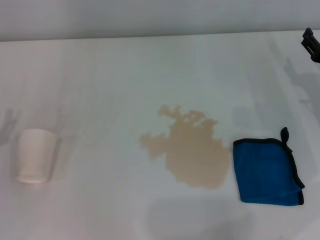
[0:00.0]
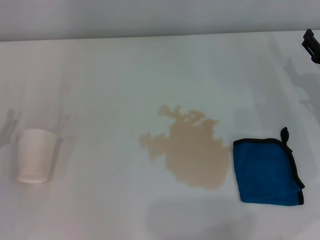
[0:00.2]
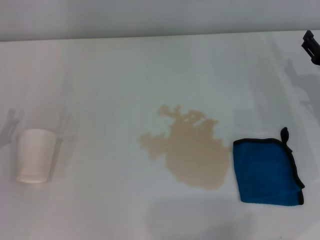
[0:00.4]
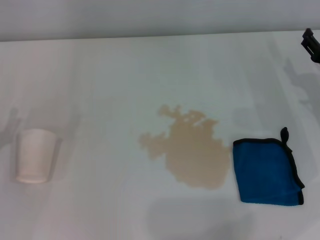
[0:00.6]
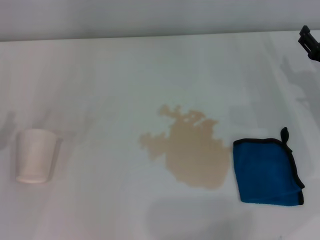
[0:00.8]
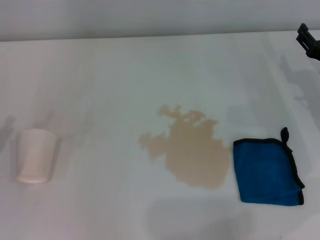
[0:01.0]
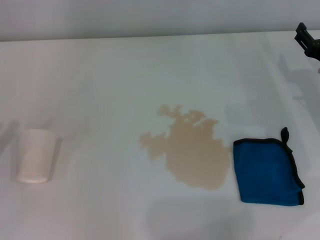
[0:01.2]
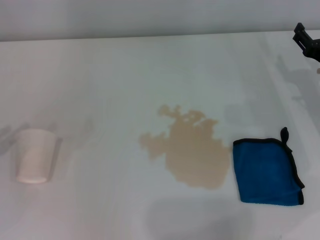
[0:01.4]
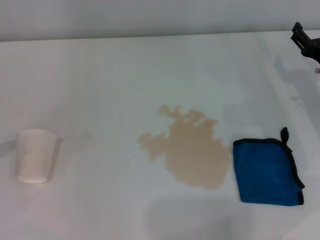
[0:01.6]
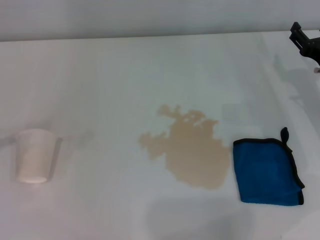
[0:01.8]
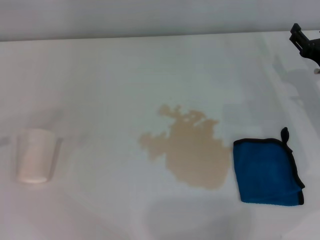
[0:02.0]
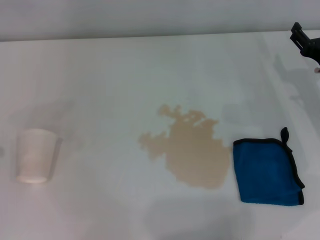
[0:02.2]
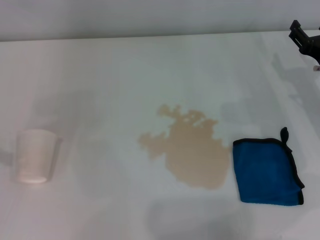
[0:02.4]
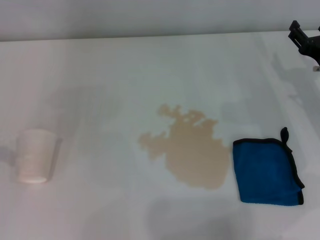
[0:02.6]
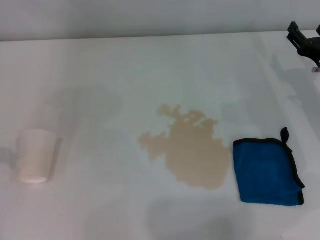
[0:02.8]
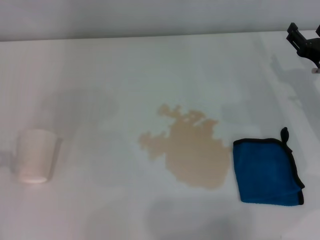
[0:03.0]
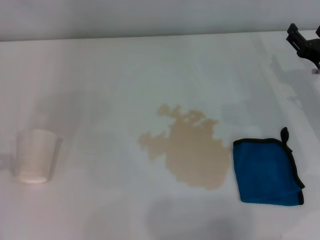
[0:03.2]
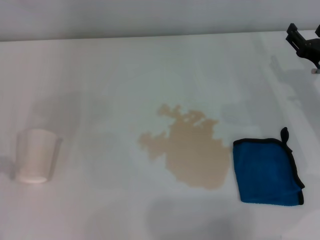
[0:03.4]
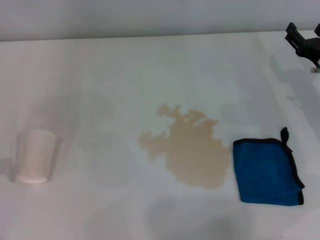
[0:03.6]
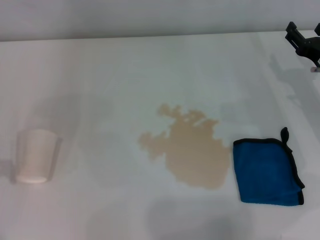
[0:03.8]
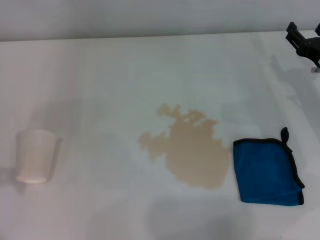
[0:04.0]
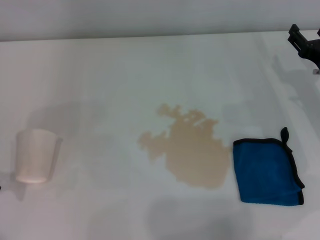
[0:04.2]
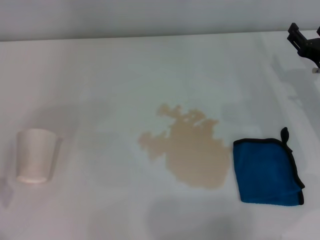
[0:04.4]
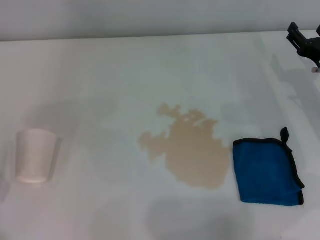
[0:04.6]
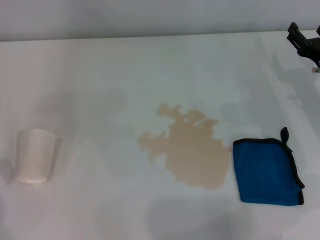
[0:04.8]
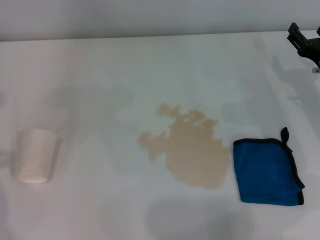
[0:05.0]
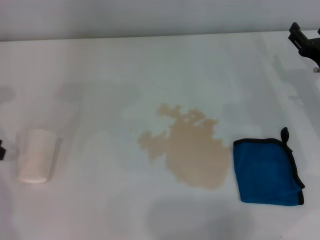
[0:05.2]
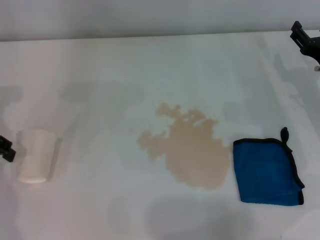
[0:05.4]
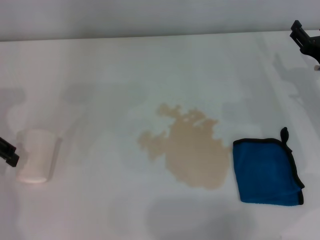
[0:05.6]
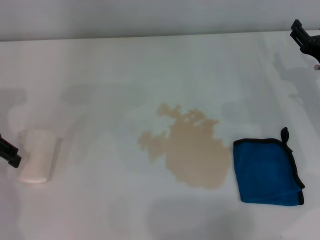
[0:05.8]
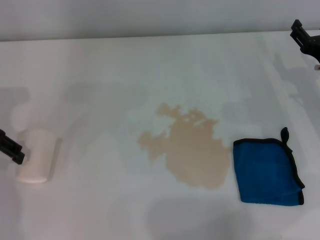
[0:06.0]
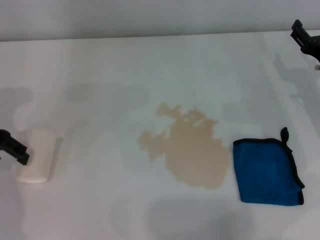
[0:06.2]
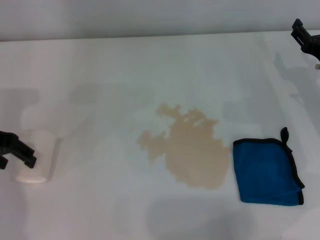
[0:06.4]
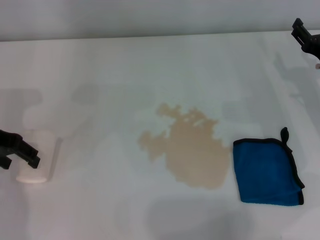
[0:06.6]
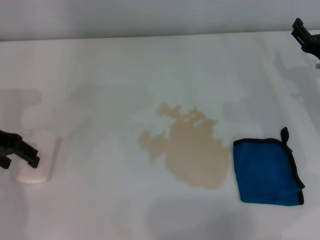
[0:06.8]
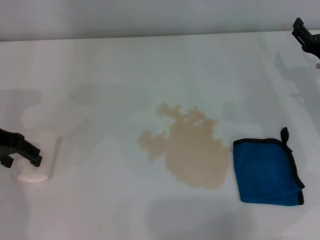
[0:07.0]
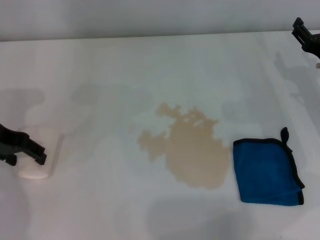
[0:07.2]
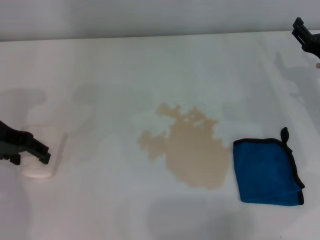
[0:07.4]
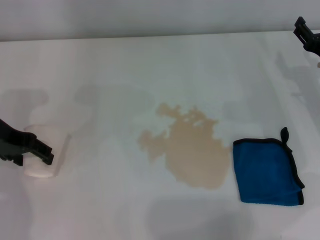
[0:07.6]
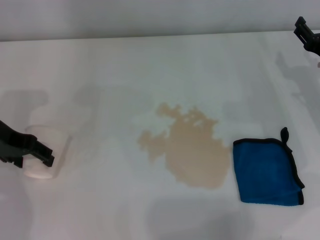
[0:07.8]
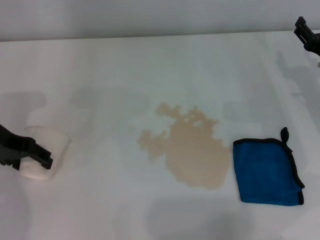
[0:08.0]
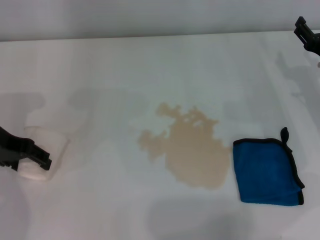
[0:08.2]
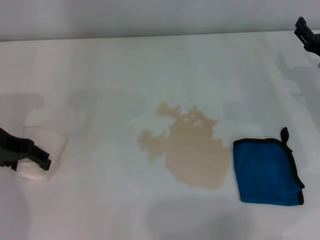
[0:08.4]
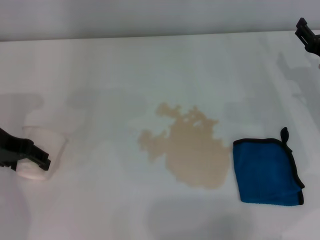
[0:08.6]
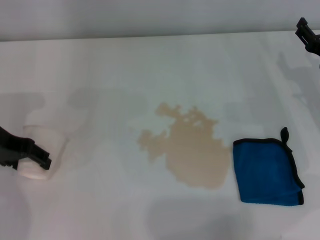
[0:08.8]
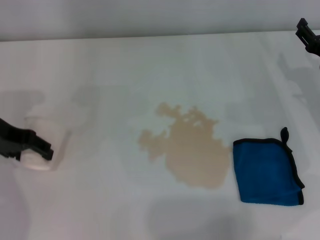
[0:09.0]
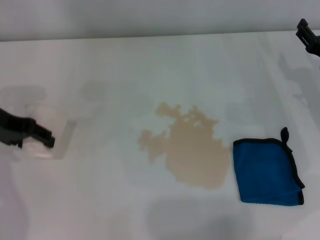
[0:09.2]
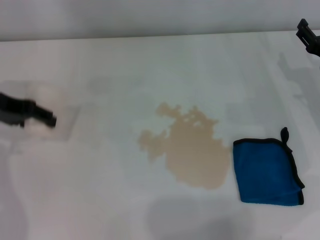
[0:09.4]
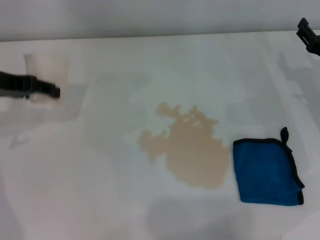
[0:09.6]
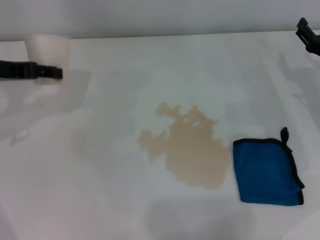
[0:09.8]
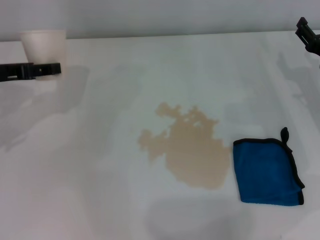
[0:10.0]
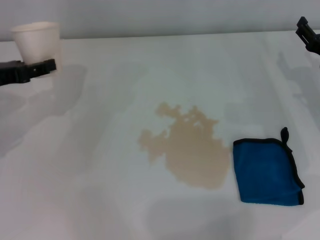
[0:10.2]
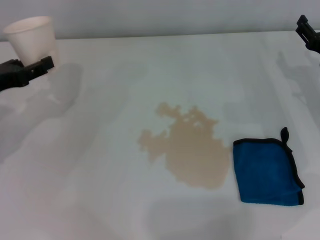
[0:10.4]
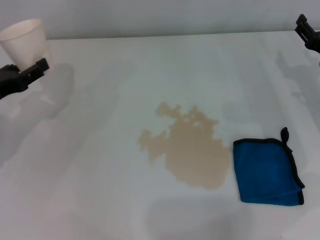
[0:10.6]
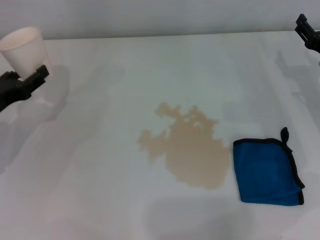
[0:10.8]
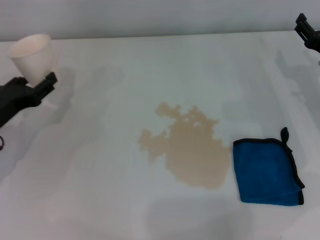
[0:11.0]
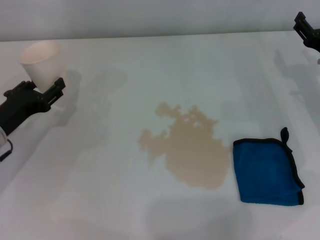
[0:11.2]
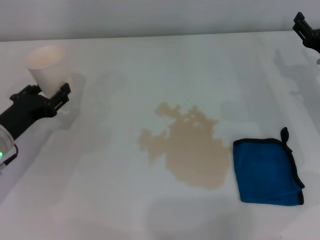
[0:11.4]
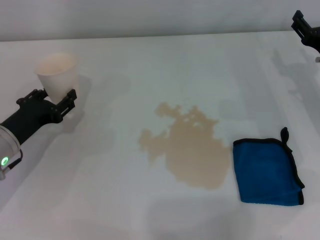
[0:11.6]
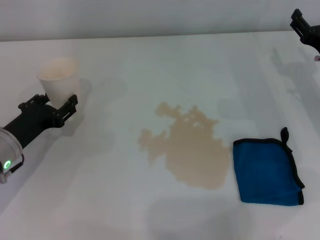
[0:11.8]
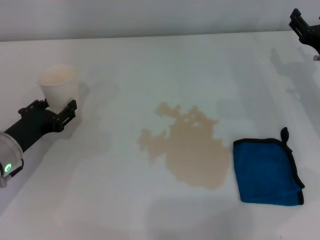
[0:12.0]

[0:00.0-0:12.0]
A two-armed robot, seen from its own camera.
0:04.4 to 0:06.0: The left gripper shifts approximately 5 cm to the right.
0:06.0 to 0:07.6: There are only small adjustments of the grippers.
0:07.6 to 0:09.0: Both grippers stay put.
0:09.0 to 0:10.4: The left gripper shifts by approximately 5 cm.
0:10.4 to 0:12.0: The left gripper shifts approximately 10 cm downward.

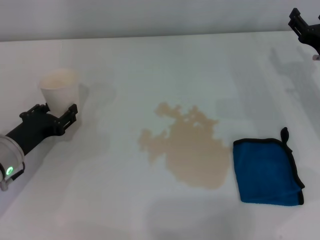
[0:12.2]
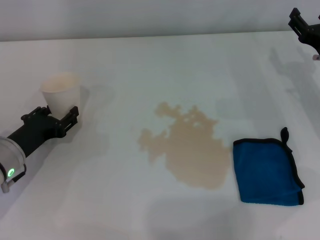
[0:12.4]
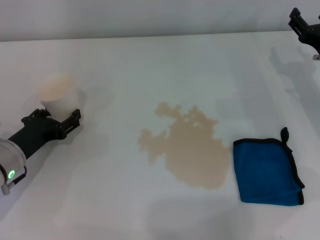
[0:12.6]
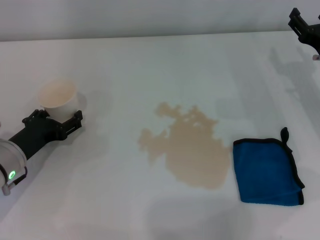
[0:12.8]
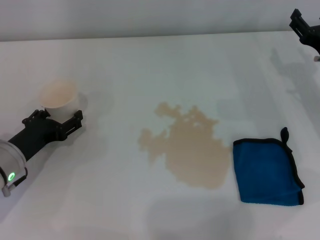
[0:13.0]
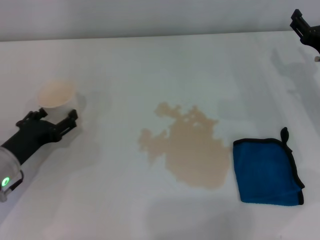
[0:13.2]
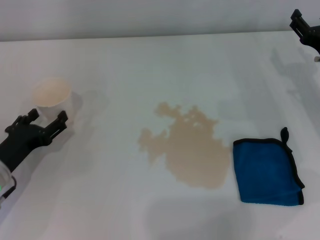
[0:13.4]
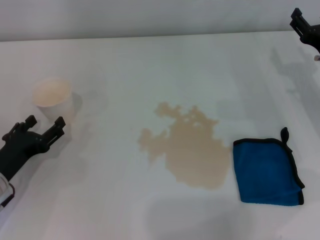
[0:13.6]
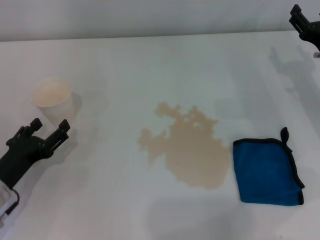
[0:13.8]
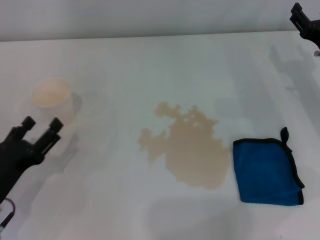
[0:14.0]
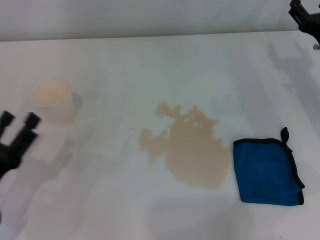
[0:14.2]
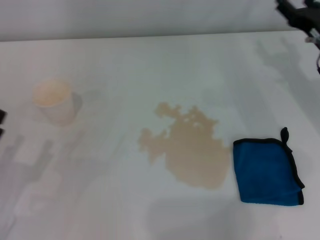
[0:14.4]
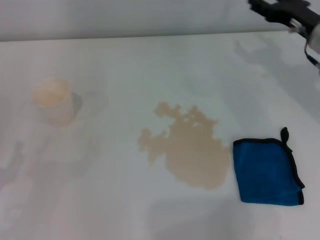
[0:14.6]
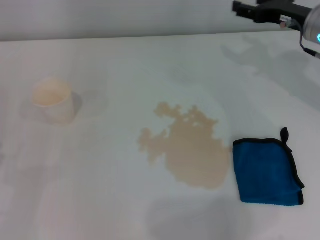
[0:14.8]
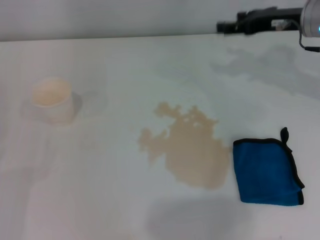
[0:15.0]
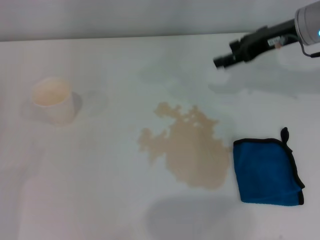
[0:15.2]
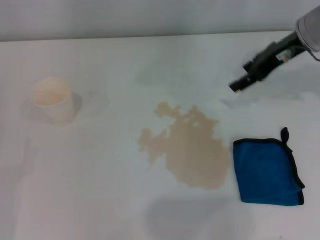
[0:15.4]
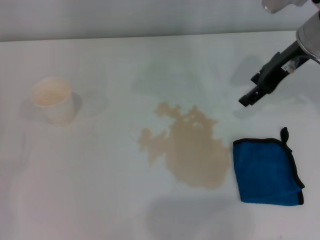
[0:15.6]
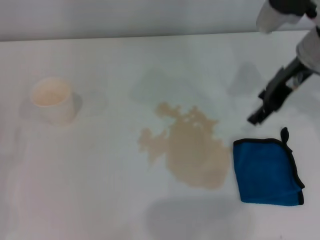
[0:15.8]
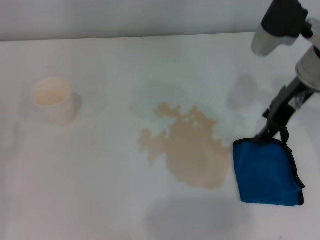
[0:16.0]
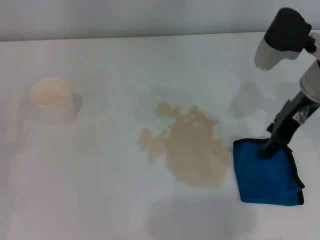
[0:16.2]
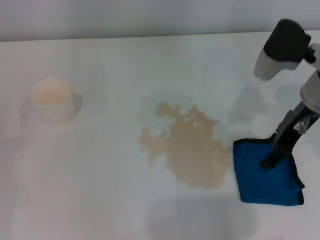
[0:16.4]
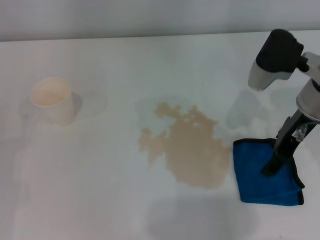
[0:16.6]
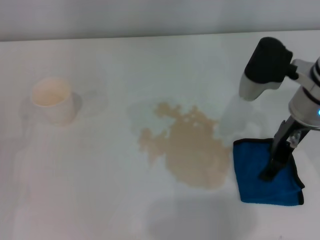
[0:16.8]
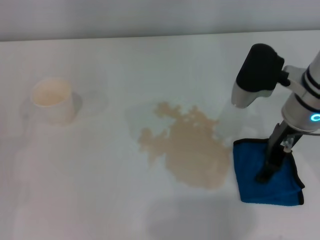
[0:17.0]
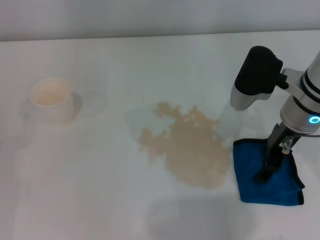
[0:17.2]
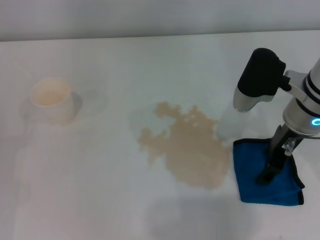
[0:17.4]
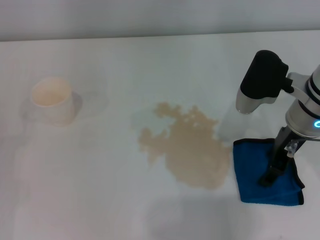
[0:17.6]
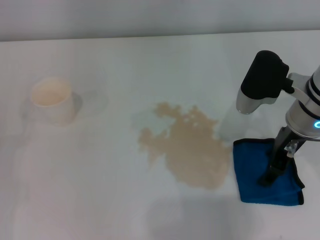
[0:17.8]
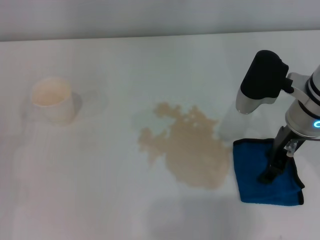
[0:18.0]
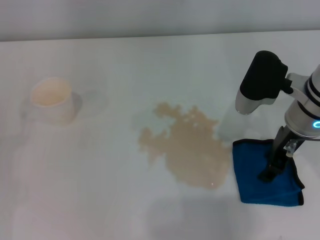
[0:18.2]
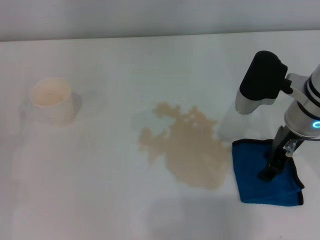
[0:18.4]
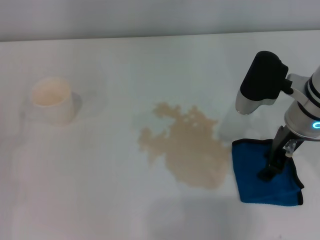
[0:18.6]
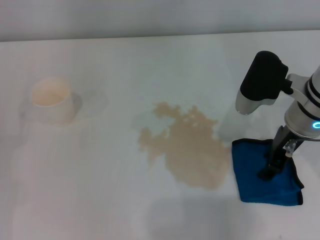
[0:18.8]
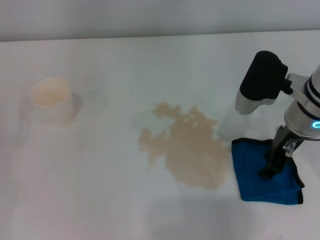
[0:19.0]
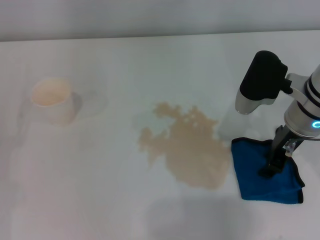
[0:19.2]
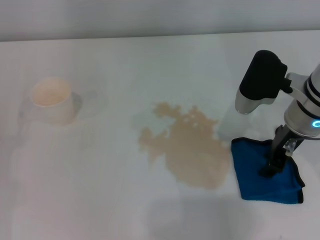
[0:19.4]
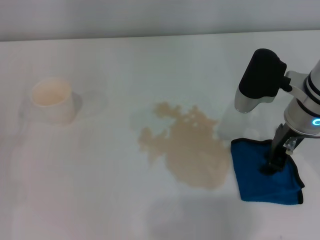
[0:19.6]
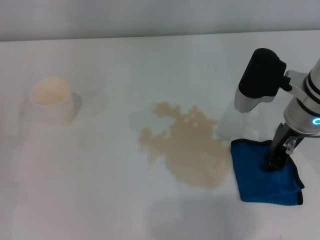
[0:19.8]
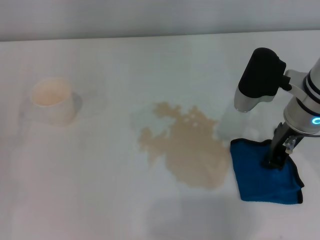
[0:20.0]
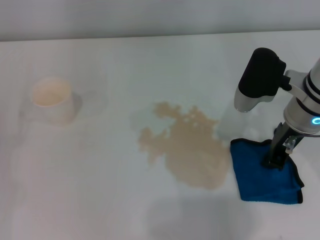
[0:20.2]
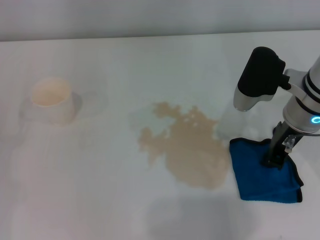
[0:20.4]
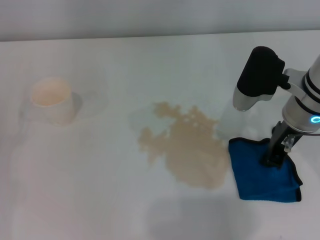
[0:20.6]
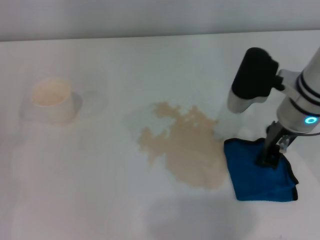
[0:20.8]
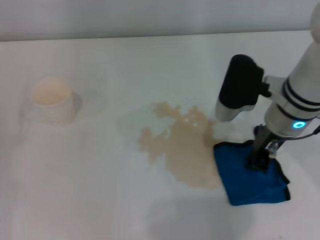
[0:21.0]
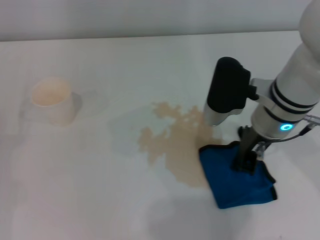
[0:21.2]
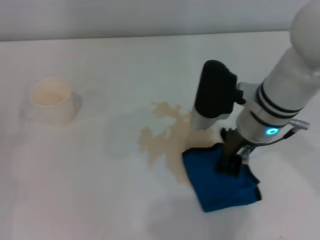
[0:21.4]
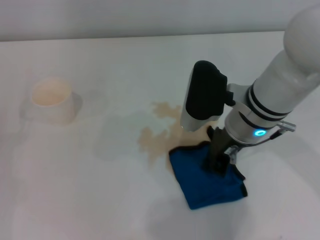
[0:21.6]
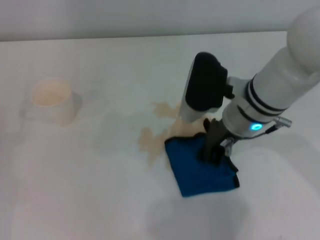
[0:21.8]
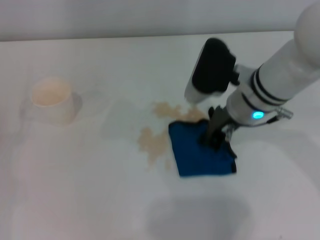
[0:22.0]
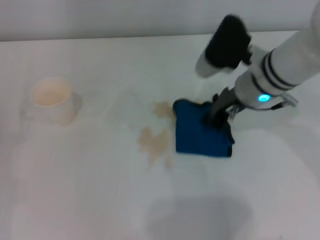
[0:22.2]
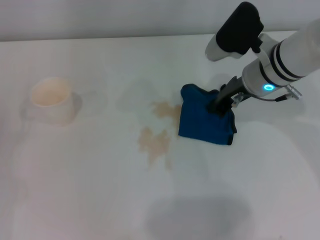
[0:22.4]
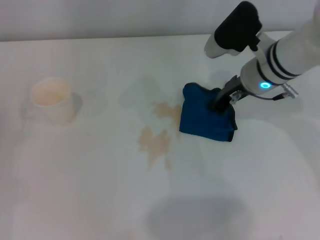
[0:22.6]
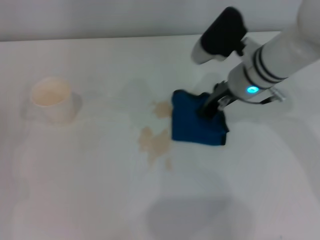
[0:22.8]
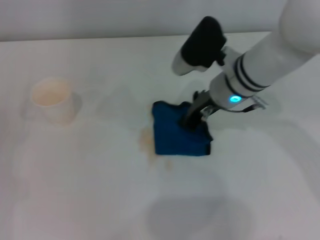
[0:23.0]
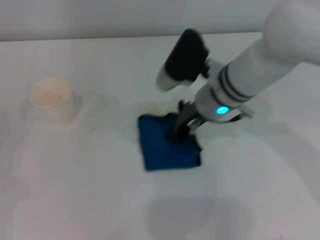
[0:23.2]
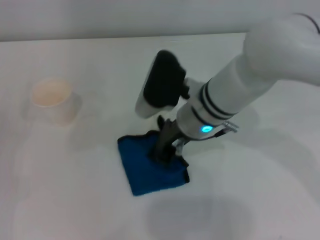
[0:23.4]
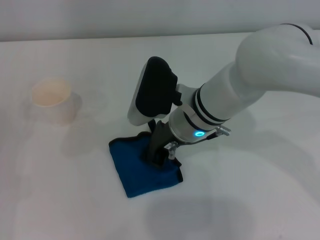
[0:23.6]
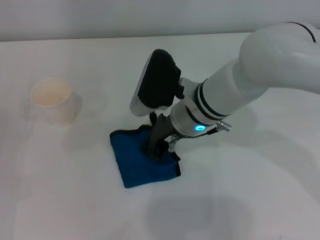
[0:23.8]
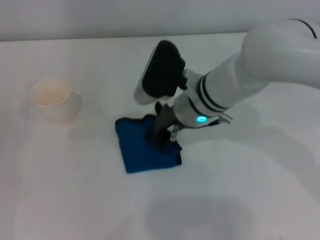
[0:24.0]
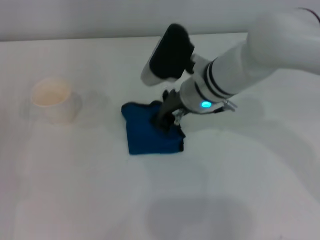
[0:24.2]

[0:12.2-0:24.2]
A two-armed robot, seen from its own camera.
Step, 0:13.2 to 0:19.0: Grasp the rag with the right gripper.
0:12.2 to 0:13.8: The left gripper is displaced backward by approximately 5 cm, and opens its fingers.
0:13.8 to 0:15.2: The right gripper goes approximately 15 cm upward and forward, while the left gripper heads backward and to the left, covering about 10 cm.
0:15.2 to 0:16.6: The right gripper heads backward, covering some 10 cm.
0:16.6 to 0:18.2: There are only small adjustments of the grippers.
0:18.2 to 0:19.8: The right gripper closes.
0:19.8 to 0:21.2: The grippers make only small movements.
0:21.2 to 0:22.6: The right gripper goes about 5 cm forward.
0:22.6 to 0:24.2: The right gripper travels to the left by some 10 cm.
